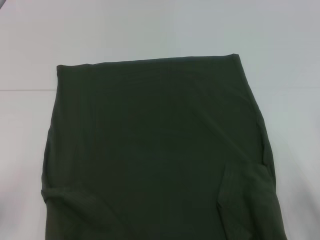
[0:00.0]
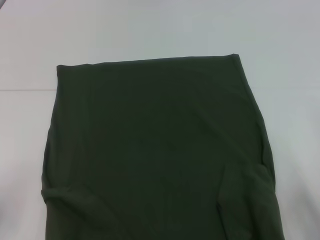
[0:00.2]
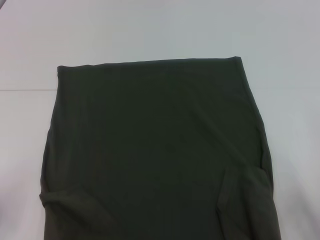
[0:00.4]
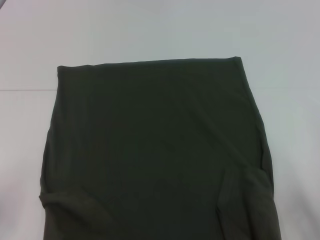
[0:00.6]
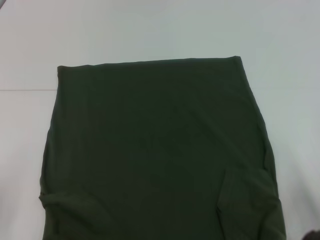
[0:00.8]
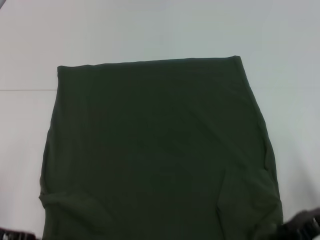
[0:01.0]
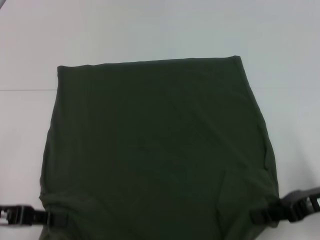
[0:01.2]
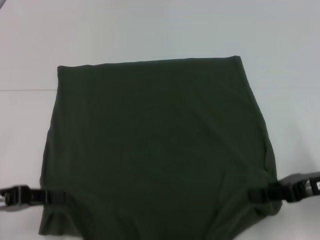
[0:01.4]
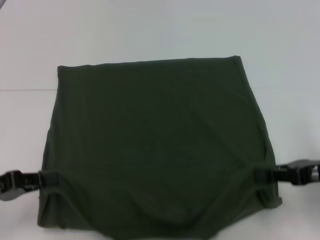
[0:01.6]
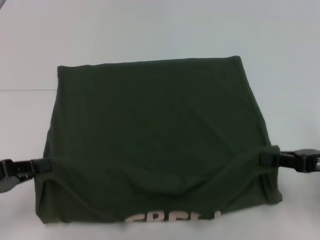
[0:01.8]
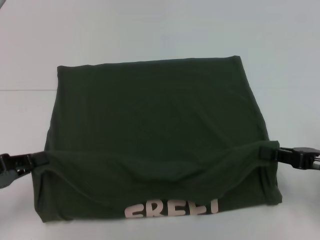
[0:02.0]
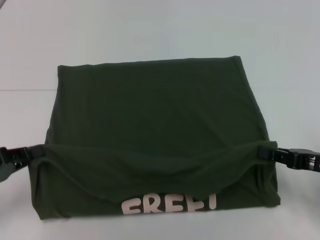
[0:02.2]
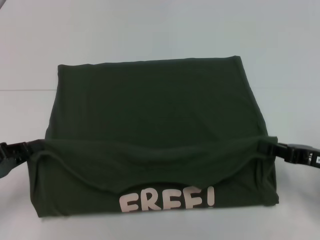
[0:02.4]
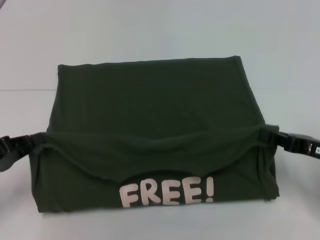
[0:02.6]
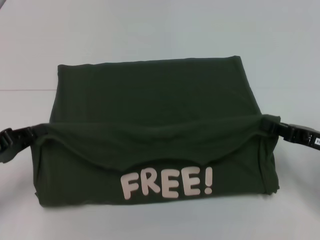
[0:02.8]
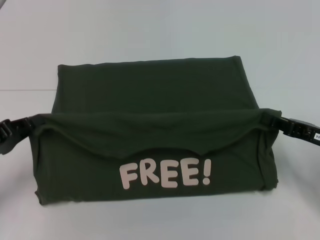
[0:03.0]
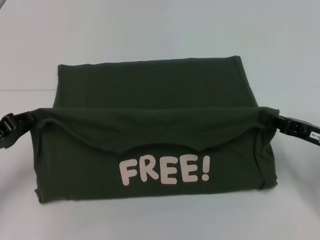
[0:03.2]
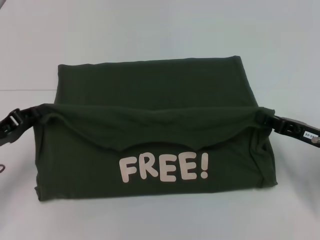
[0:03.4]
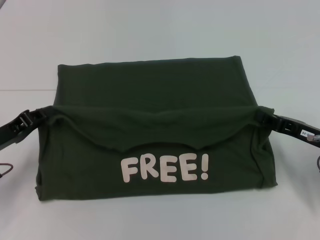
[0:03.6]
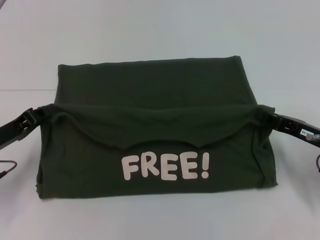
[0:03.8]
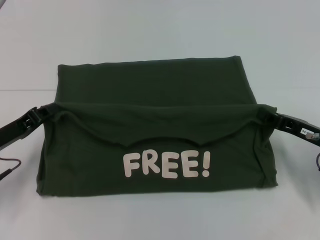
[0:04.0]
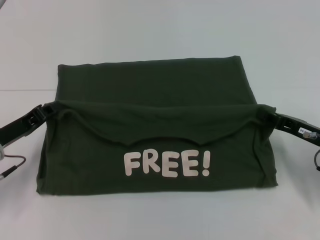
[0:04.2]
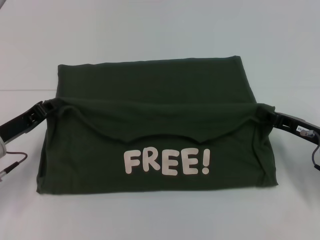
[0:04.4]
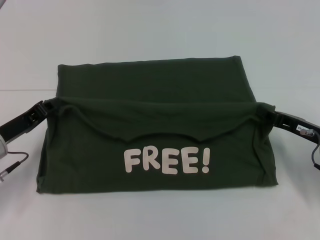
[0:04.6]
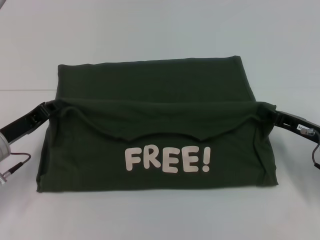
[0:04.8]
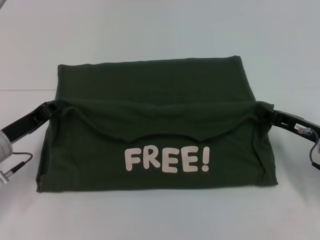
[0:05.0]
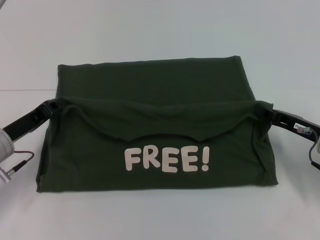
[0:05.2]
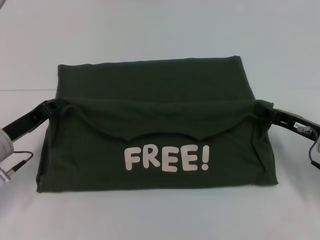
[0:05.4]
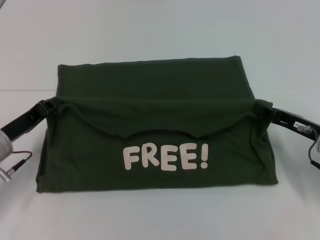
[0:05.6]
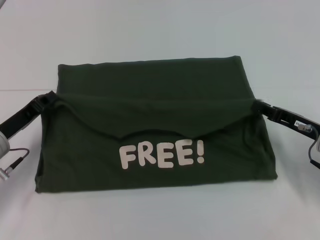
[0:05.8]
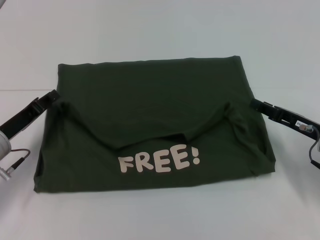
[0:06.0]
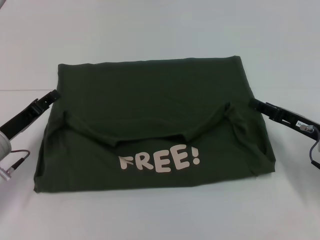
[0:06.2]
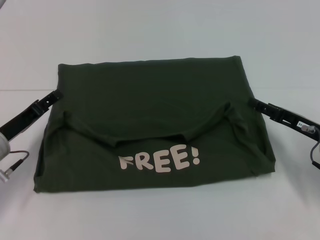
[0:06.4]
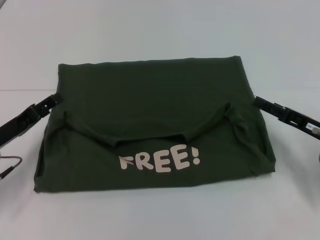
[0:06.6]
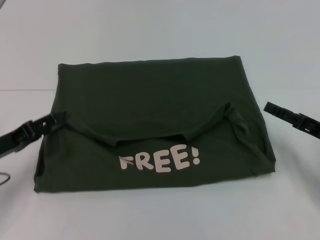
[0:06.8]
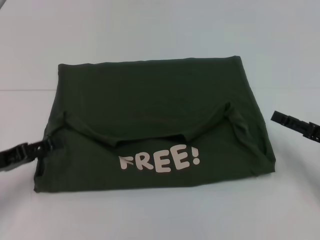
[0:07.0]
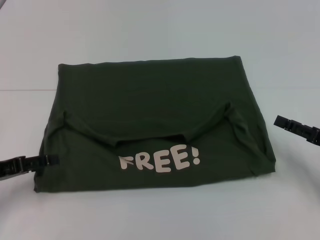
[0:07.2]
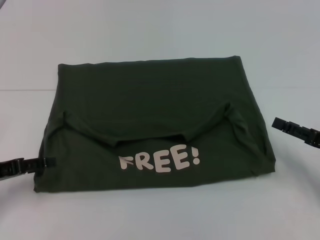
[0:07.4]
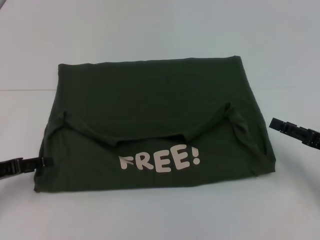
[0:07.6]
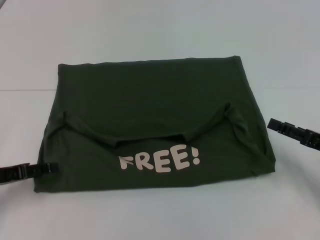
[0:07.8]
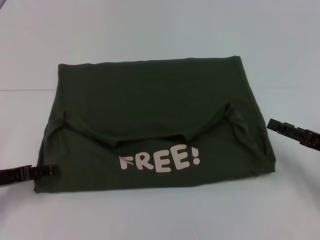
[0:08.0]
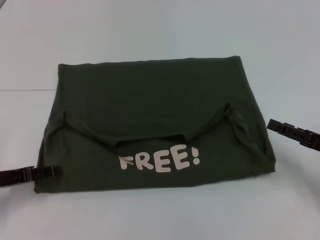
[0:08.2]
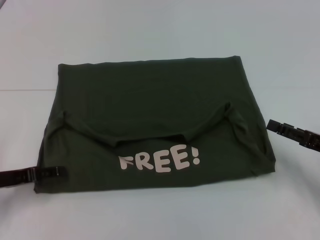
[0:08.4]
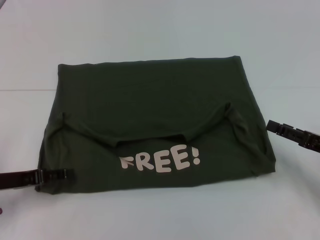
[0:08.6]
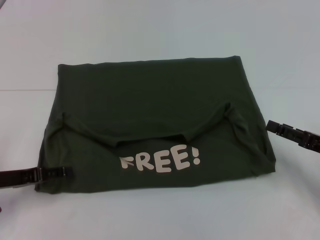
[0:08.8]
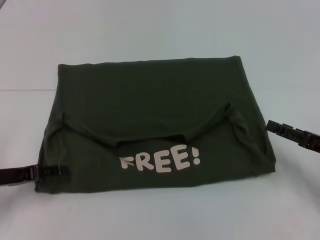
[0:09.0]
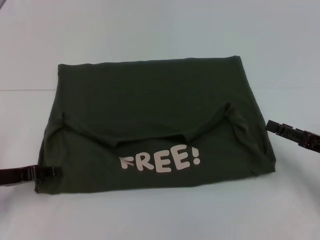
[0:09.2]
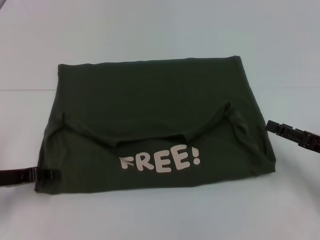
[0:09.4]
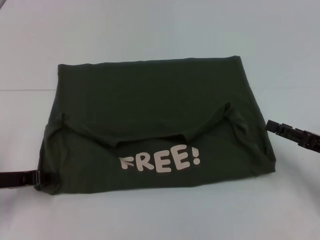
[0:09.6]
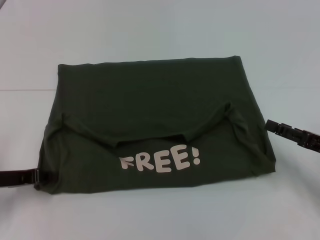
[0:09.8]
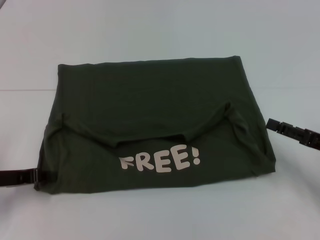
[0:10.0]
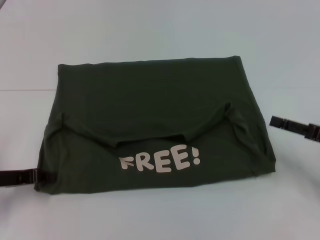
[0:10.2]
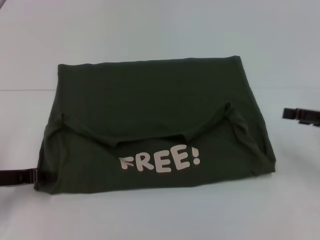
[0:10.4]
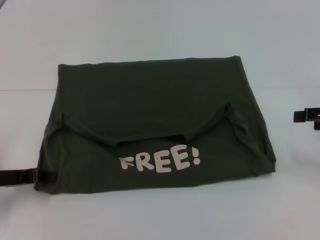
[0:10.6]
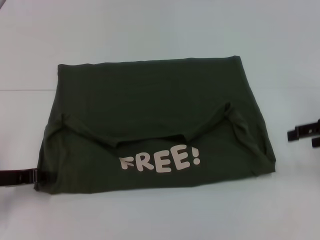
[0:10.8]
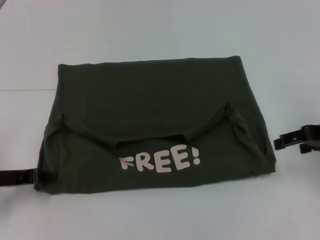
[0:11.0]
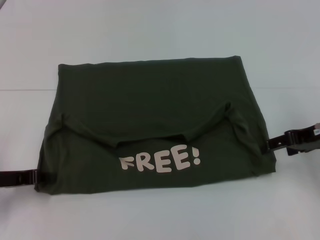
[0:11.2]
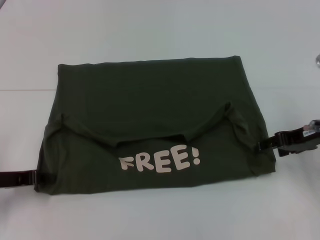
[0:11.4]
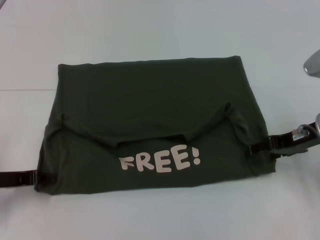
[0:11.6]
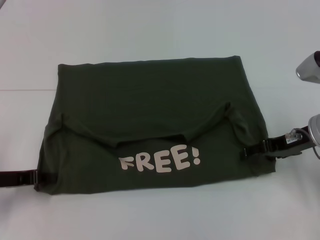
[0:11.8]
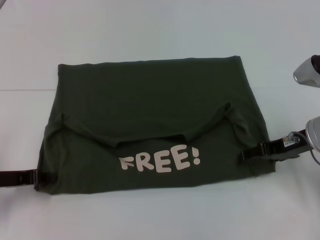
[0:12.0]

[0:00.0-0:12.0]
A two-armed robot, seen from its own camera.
Step, 0:00.0 to 0:05.8: Fold the clothes with your right hand.
0:03.0 to 0:04.4: The left gripper is displaced forward by roughly 5 cm.
0:04.4 to 0:06.0: The grippers stay close to where they were, moving slightly.
0:06.0 to 0:07.6: The right gripper goes about 5 cm backward, and opens up; the left gripper goes about 5 cm to the left, and opens up.
0:07.6 to 0:09.0: There are only small adjustments of the grippers.
0:09.0 to 0:10.4: The right gripper shifts about 5 cm upward.
0:10.4 to 0:12.0: The right gripper goes about 10 cm to the left and forward.

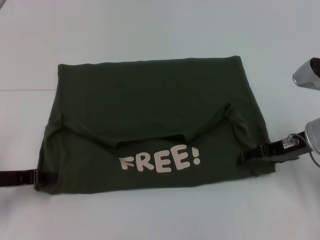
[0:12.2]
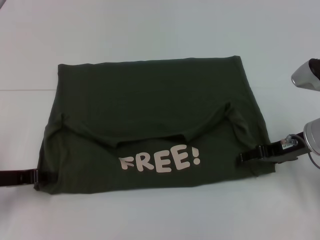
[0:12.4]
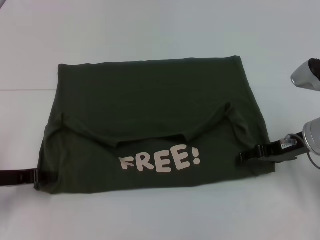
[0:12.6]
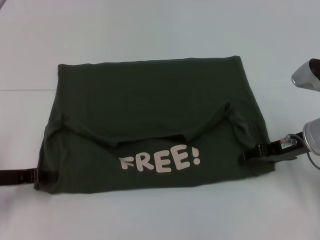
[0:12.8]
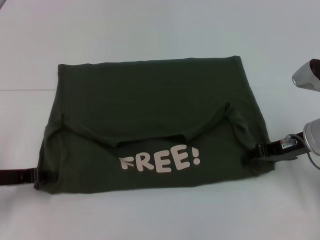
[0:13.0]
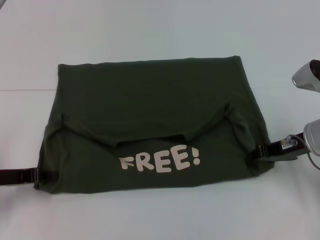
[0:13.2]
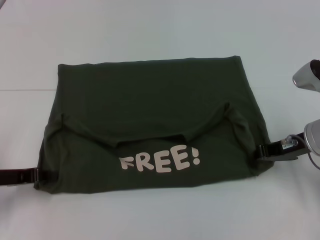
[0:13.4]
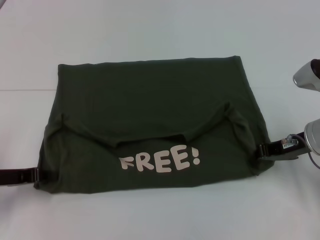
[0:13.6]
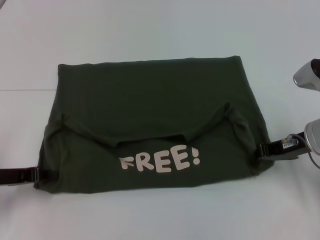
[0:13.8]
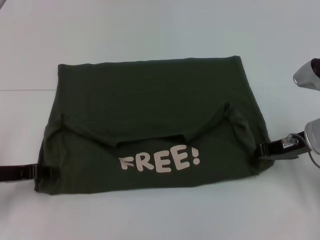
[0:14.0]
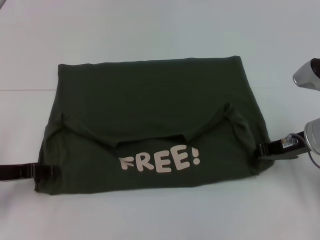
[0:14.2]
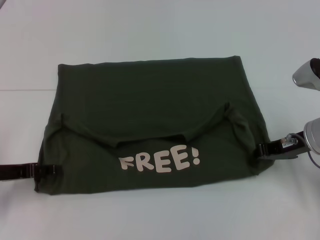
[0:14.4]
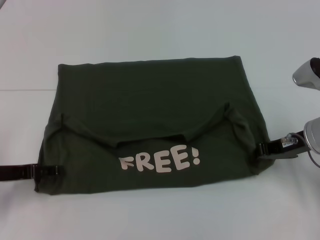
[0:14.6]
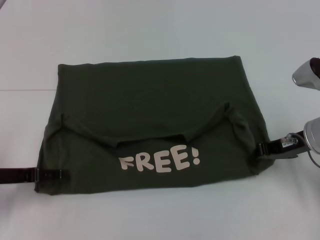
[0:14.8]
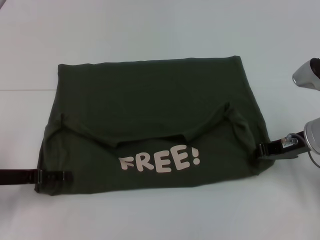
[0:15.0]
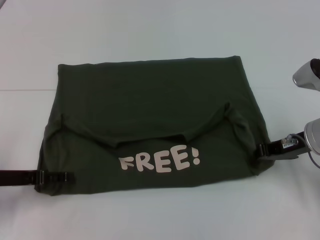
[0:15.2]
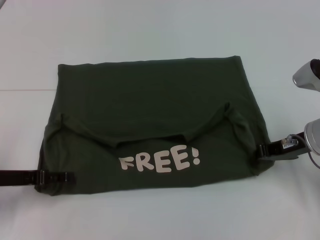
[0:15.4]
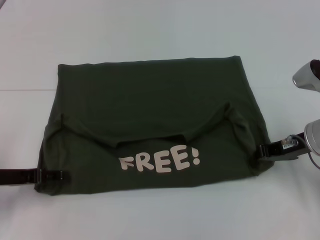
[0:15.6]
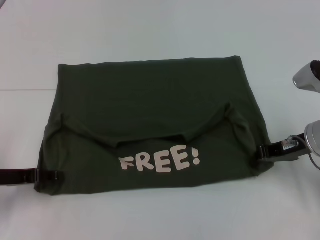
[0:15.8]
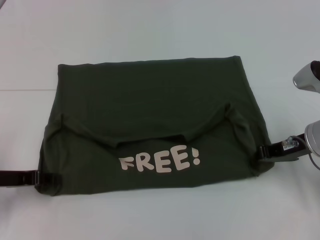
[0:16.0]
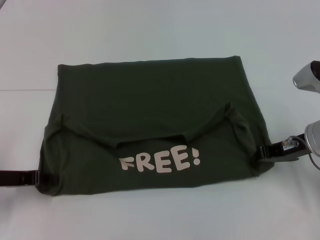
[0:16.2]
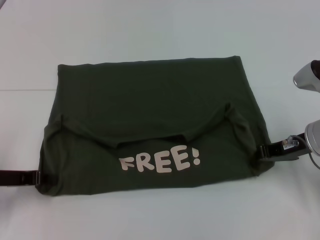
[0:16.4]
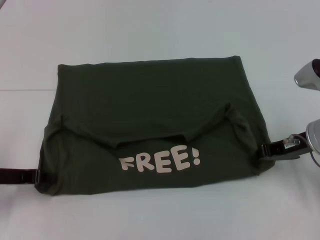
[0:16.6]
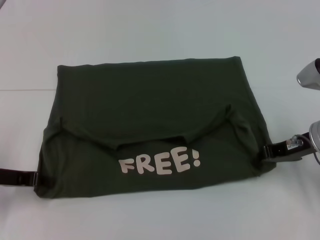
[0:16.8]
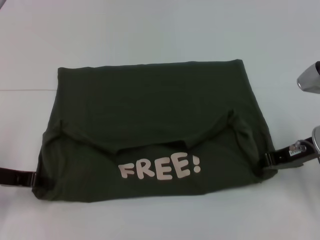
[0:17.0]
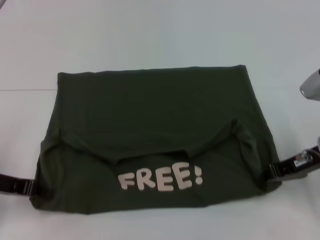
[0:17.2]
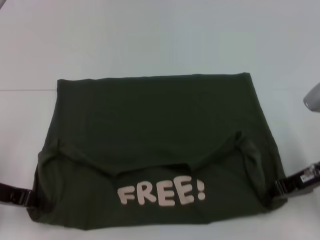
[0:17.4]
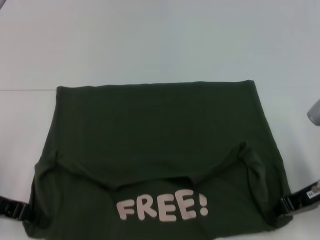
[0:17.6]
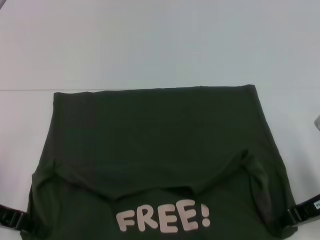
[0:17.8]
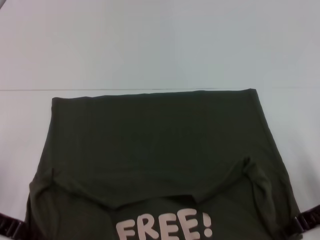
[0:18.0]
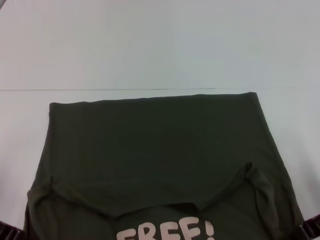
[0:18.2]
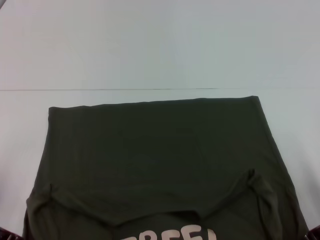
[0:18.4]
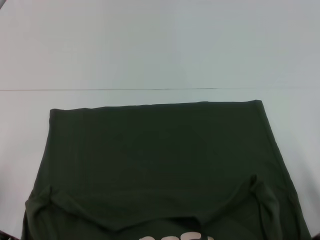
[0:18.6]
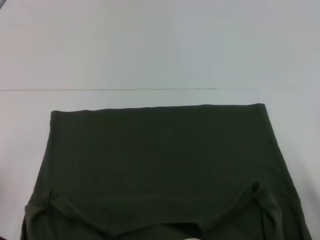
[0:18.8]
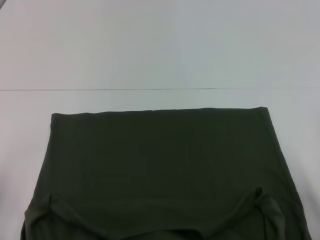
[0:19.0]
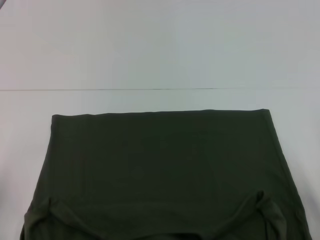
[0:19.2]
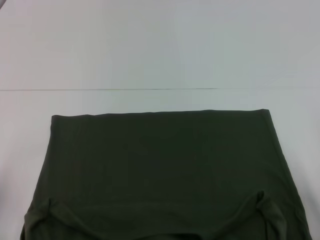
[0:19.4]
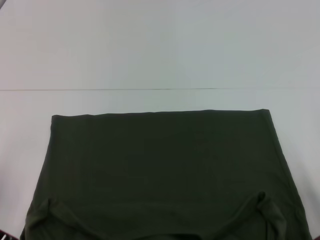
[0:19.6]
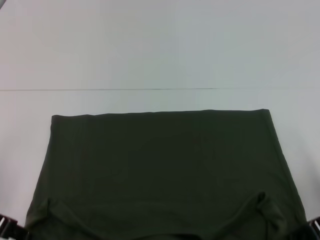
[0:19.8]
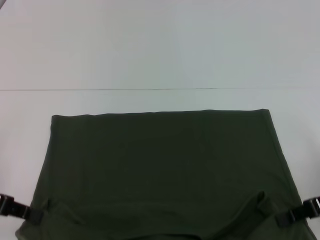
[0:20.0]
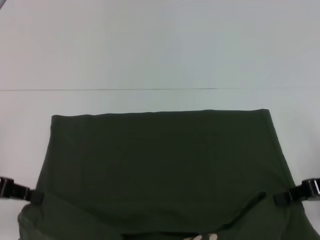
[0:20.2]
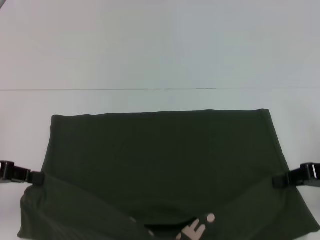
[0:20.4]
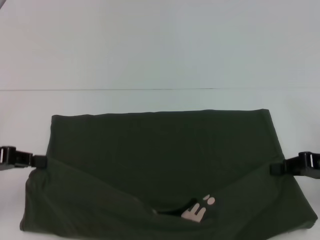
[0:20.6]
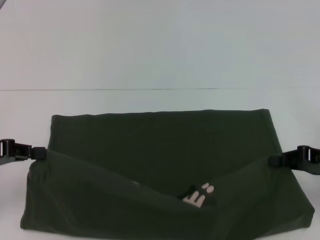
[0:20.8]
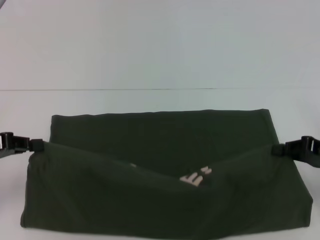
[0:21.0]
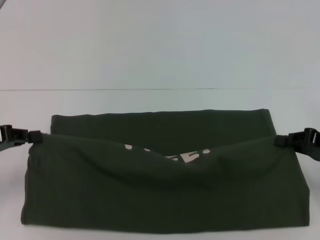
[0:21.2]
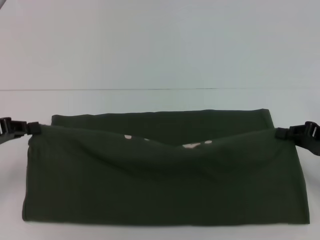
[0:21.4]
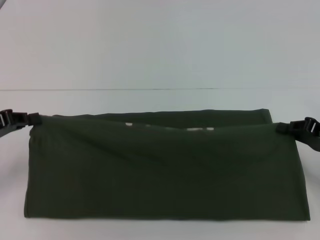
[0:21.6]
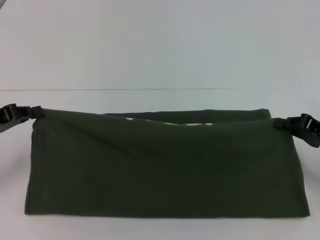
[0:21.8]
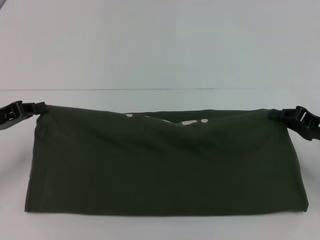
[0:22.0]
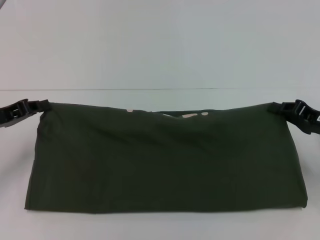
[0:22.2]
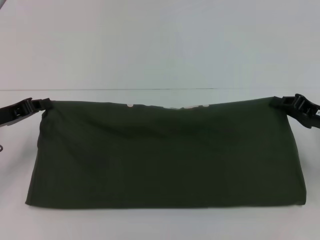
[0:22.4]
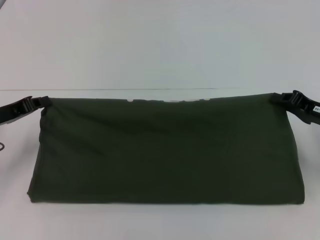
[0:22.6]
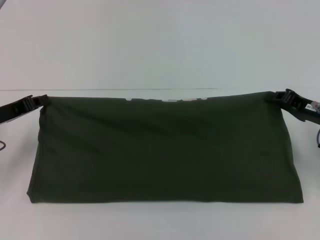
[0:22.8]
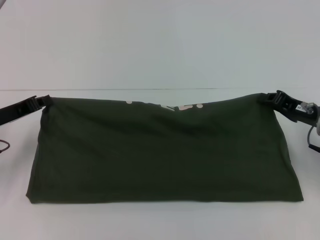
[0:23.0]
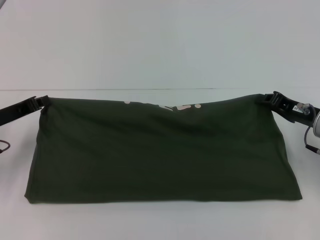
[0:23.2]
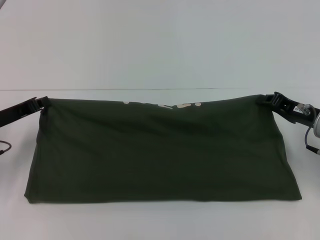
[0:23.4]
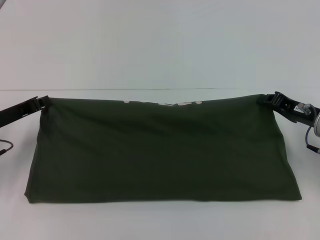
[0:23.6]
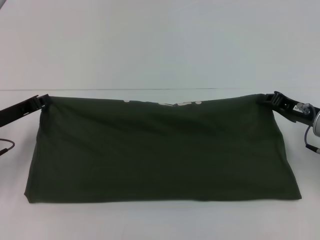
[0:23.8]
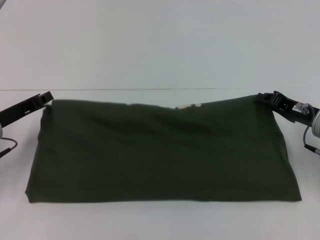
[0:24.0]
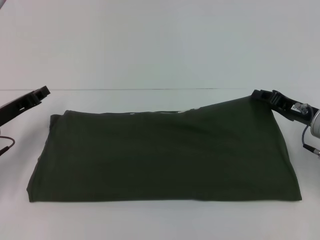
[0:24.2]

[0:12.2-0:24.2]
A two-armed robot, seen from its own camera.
Step, 0:12.2 to 0:19.0: Pull the clothes with your left hand.
Step, 0:12.2 to 0:19.0: Pull the clothes with your right hand.
Step, 0:19.2 to 0:24.2: Fold the clothes with your left hand.
0:13.8 to 0:15.2: The left gripper opens its fingers.
0:16.6 to 0:18.2: The right gripper moves backward, about 10 cm, while the left gripper moves about 5 cm.
0:18.2 to 0:19.8: The grippers make only small movements.
0:19.8 to 0:21.2: The right gripper shifts by some 5 cm.
0:21.2 to 0:22.6: The left gripper moves about 5 cm; the right gripper shifts by approximately 5 cm.
0:22.6 to 0:24.2: The grippers move only a little.
